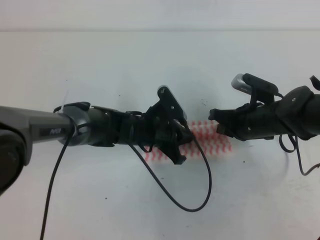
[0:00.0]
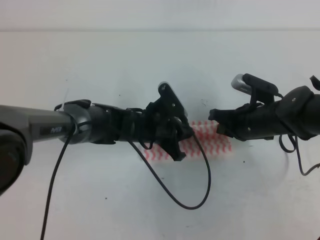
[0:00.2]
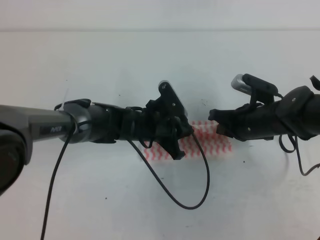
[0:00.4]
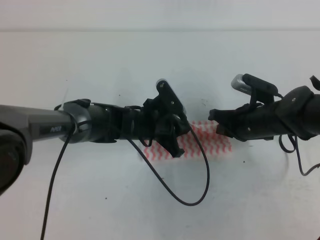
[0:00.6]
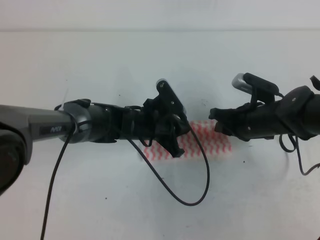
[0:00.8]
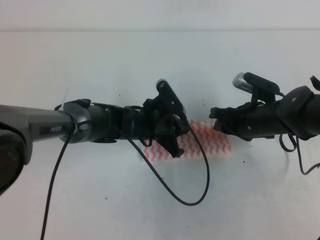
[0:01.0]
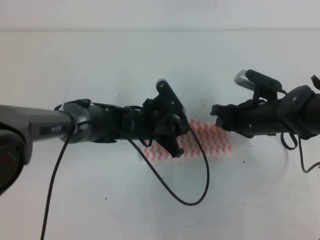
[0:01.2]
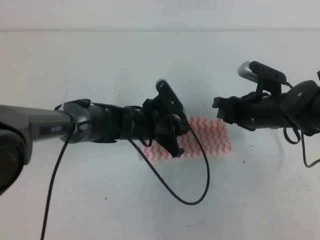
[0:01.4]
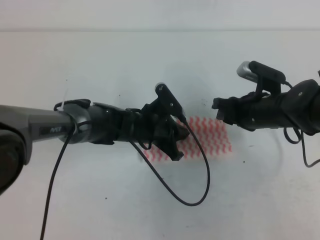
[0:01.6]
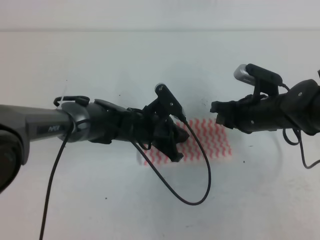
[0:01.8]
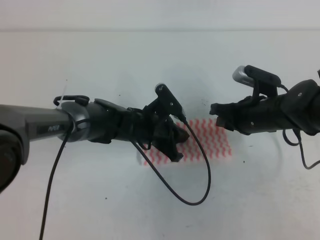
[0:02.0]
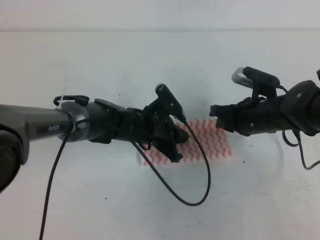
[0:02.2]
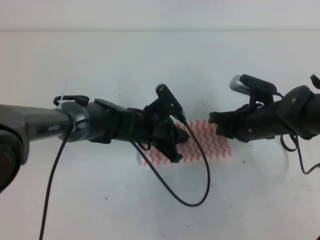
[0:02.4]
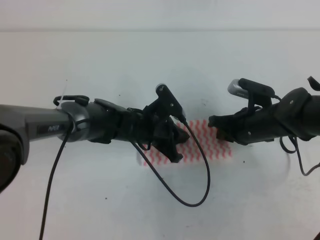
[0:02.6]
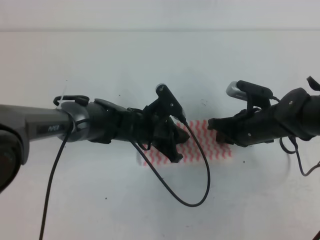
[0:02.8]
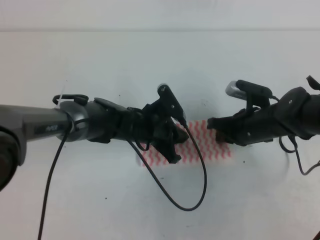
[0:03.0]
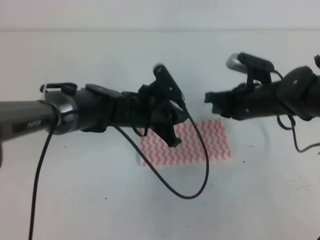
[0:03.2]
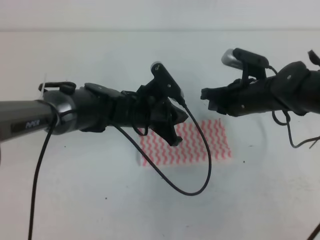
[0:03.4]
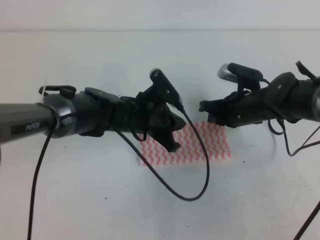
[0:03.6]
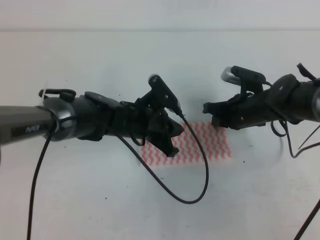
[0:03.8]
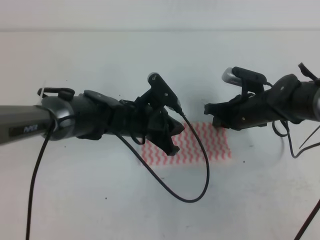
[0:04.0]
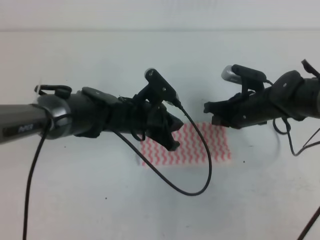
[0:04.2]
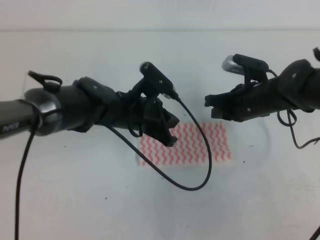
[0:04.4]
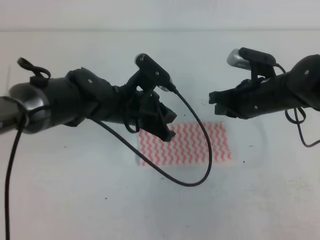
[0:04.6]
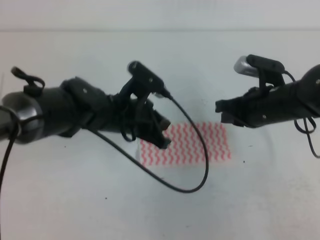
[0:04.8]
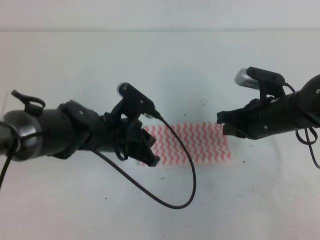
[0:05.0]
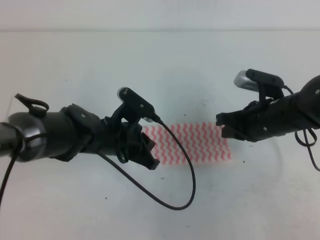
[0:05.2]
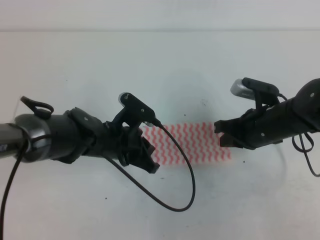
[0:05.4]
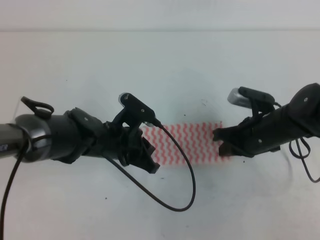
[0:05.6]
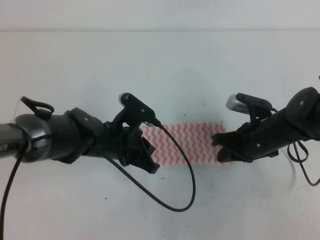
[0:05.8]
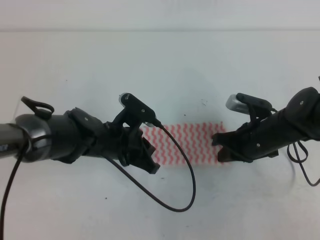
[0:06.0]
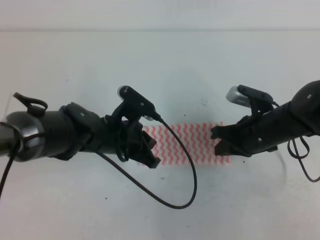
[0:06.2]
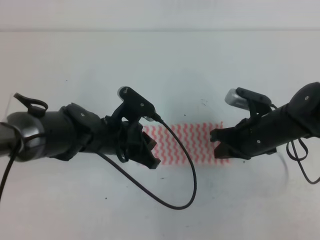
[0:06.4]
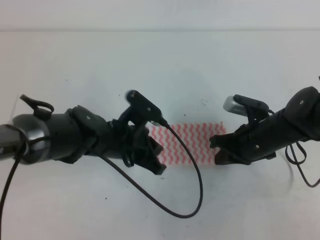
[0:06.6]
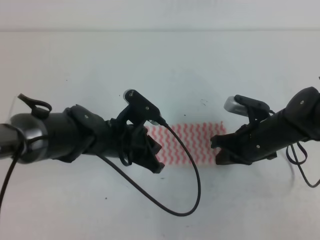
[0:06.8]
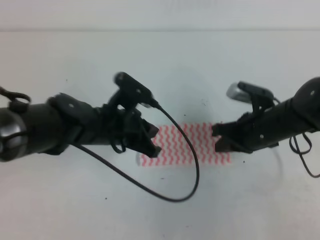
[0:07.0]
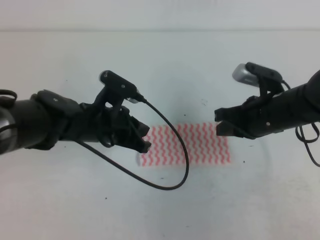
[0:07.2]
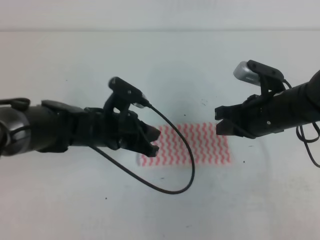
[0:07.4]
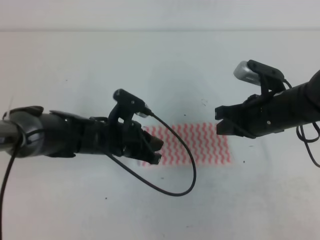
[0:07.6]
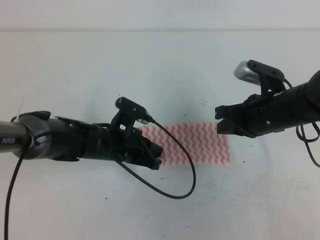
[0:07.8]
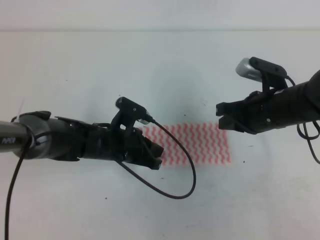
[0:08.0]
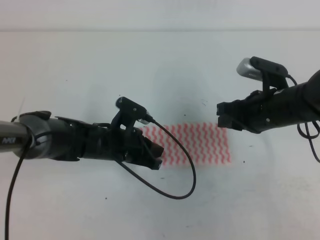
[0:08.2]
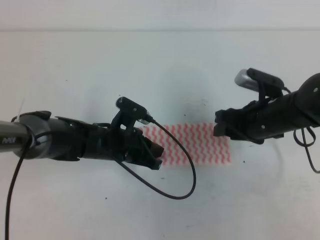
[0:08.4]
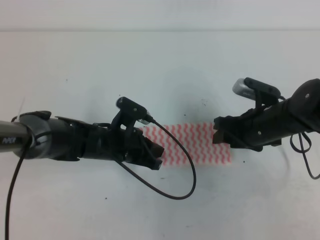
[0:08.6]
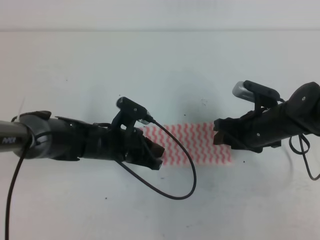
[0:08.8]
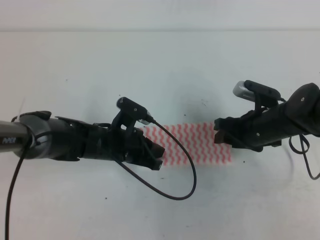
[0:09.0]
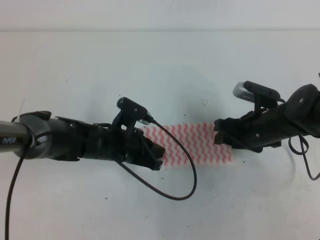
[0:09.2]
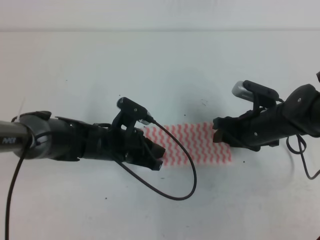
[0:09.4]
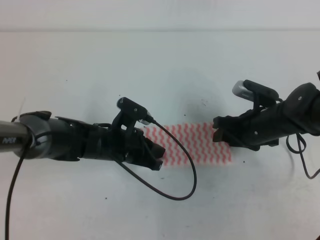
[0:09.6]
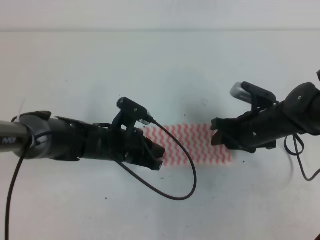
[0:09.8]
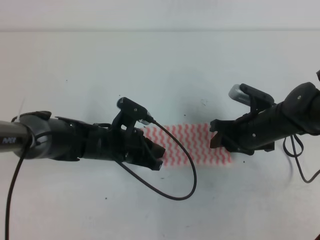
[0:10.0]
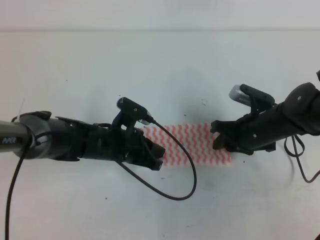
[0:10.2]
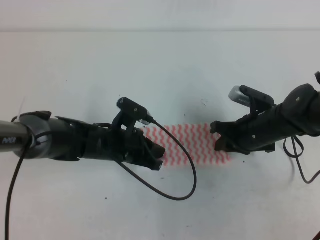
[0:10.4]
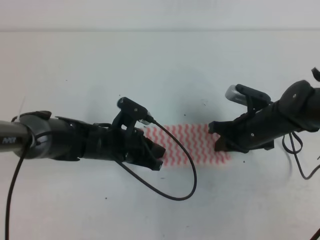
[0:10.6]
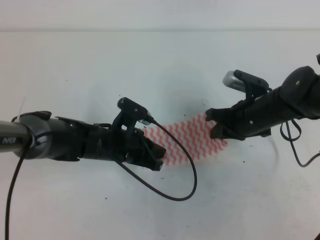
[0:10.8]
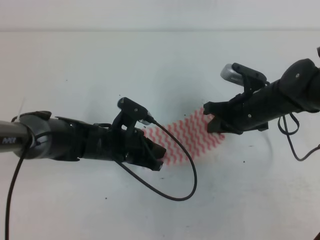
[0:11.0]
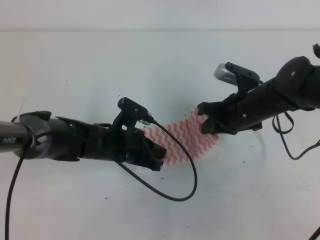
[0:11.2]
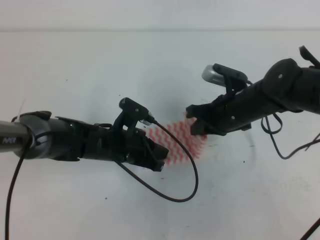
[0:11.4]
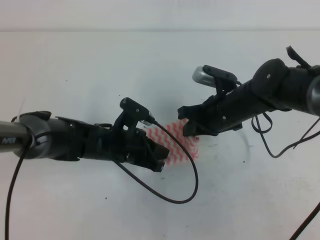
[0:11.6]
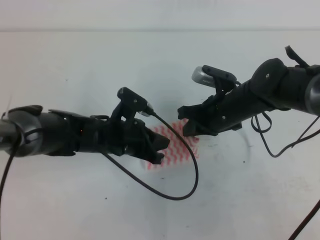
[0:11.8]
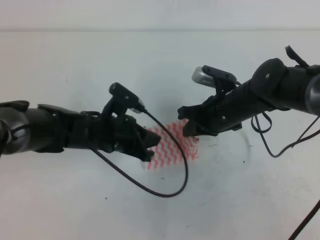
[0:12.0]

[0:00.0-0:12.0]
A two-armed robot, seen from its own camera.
0:00.0 to 0:01.6: The right gripper opens.
0:01.6 to 0:03.0: The right gripper closes up.
0:03.0 to 0:04.4: The left gripper travels upward by about 5 cm.
0:04.4 to 0:06.0: The left gripper moves roughly 5 cm. The right gripper is displaced backward by about 5 cm.
0:06.0 to 0:07.6: The right gripper heads upward, covering some 5 cm.
0:07.6 to 0:09.0: The right gripper is displaced downward by roughly 5 cm, and opens its fingers.
0:09.0 to 0:10.4: The right gripper closes.
0:10.4 to 0:12.0: The right gripper goes some 5 cm to the left.

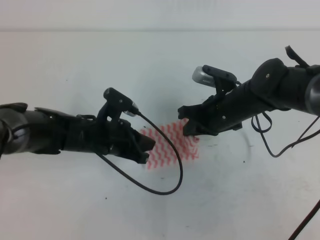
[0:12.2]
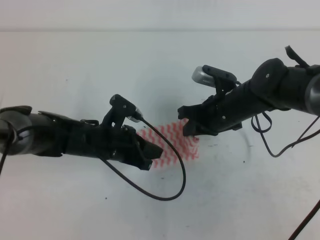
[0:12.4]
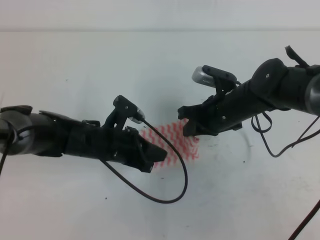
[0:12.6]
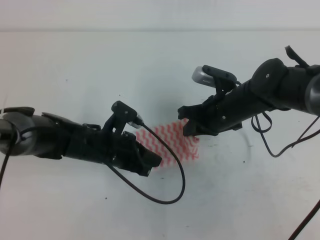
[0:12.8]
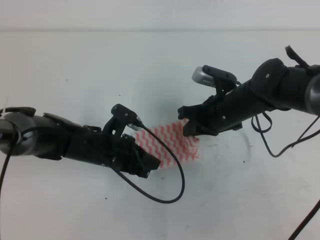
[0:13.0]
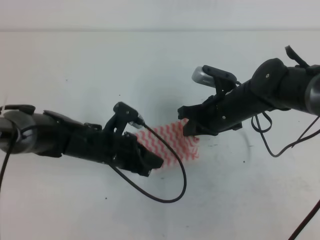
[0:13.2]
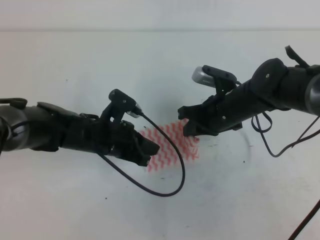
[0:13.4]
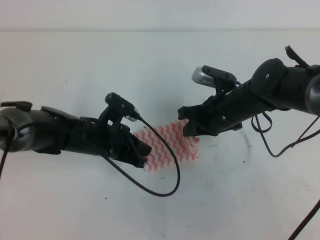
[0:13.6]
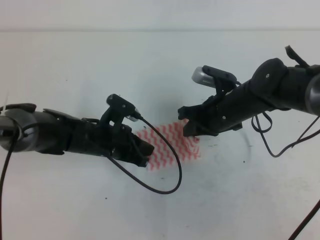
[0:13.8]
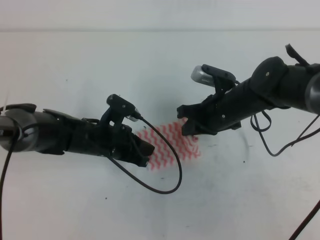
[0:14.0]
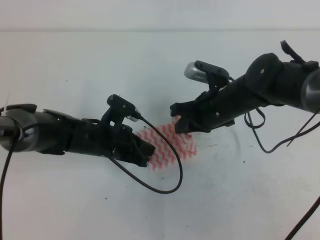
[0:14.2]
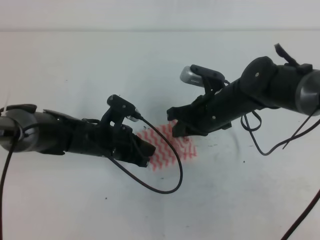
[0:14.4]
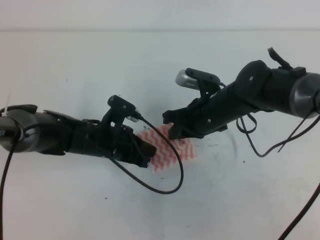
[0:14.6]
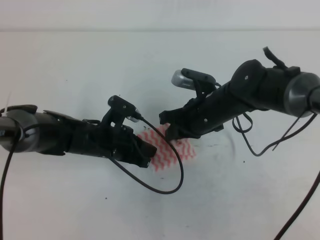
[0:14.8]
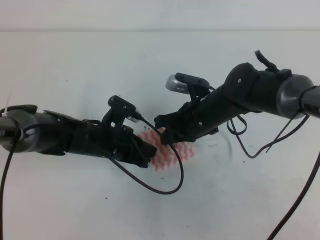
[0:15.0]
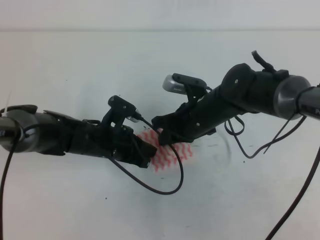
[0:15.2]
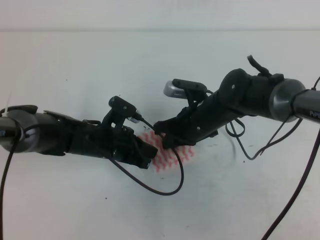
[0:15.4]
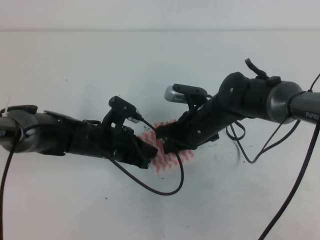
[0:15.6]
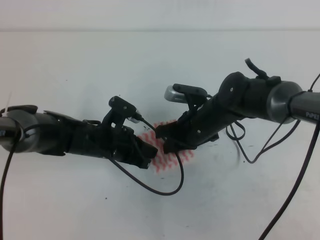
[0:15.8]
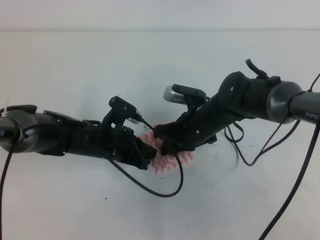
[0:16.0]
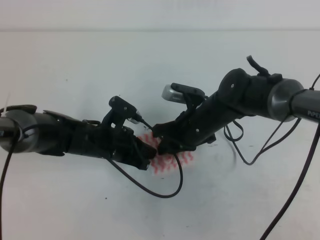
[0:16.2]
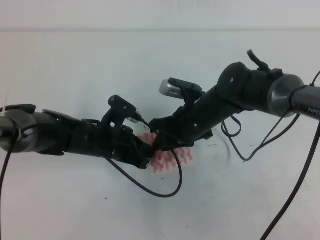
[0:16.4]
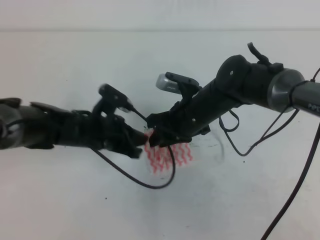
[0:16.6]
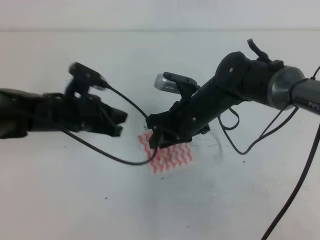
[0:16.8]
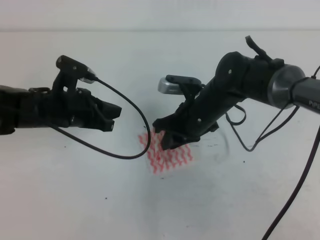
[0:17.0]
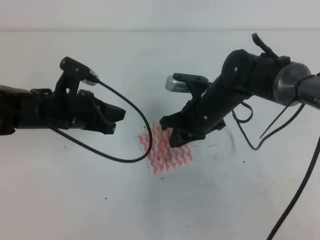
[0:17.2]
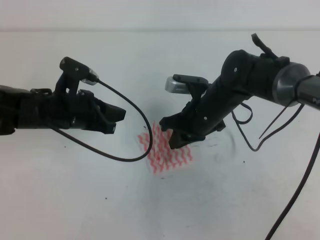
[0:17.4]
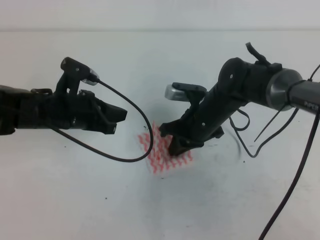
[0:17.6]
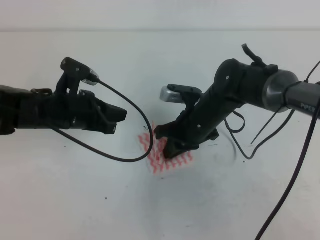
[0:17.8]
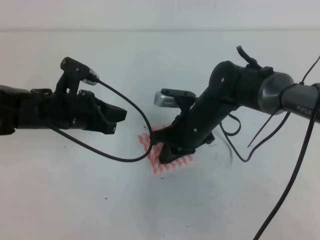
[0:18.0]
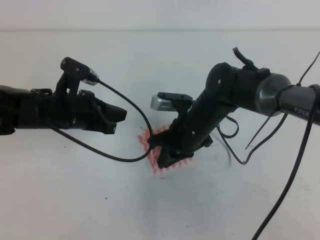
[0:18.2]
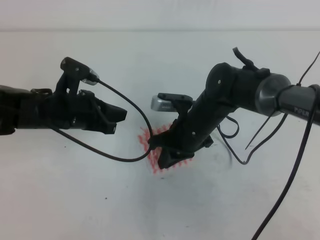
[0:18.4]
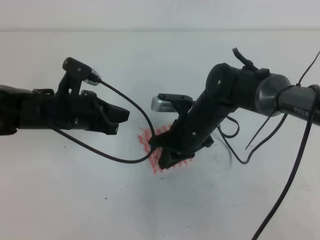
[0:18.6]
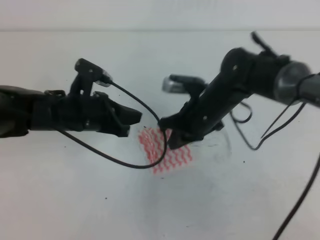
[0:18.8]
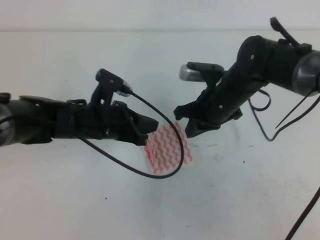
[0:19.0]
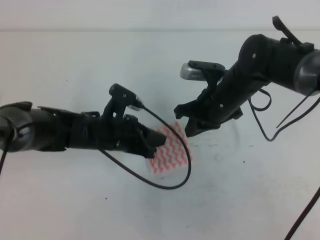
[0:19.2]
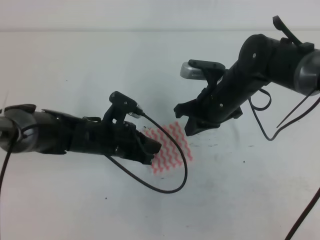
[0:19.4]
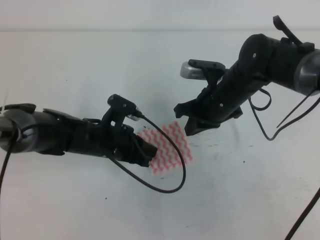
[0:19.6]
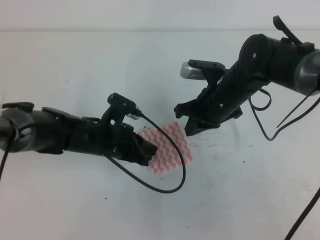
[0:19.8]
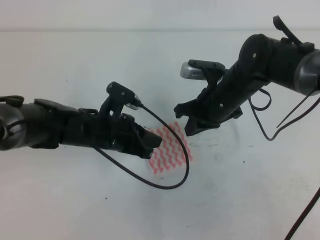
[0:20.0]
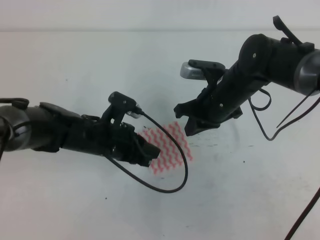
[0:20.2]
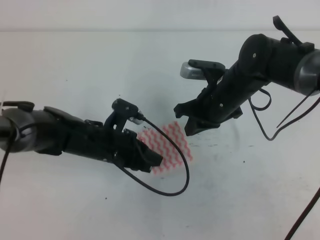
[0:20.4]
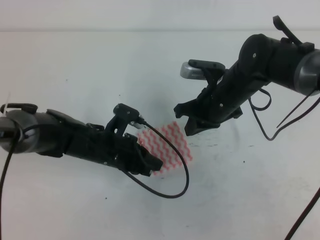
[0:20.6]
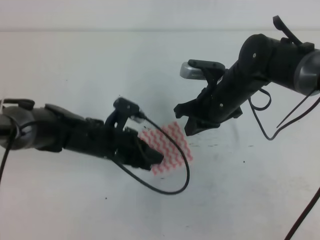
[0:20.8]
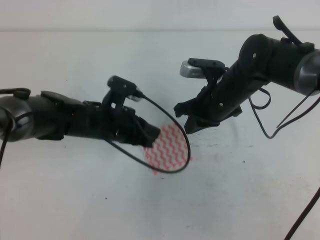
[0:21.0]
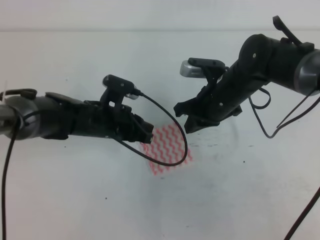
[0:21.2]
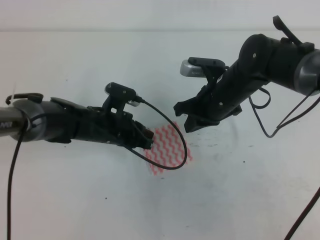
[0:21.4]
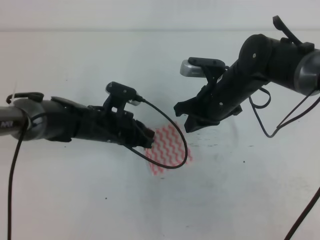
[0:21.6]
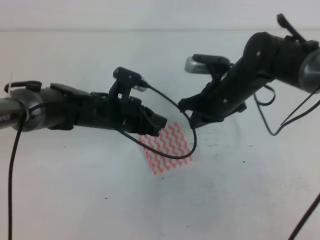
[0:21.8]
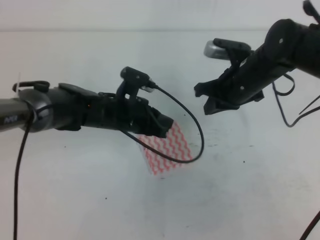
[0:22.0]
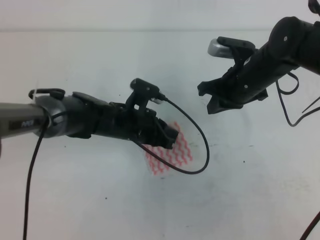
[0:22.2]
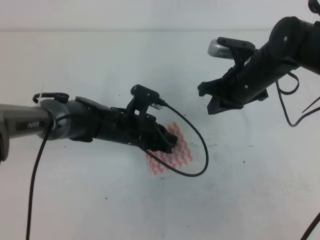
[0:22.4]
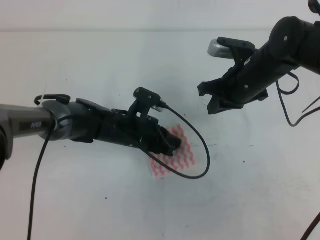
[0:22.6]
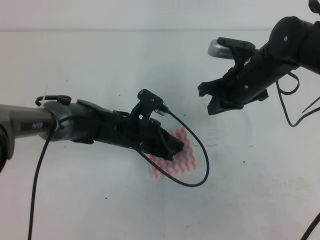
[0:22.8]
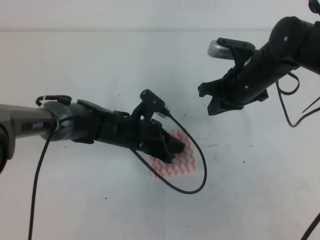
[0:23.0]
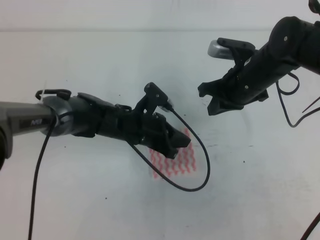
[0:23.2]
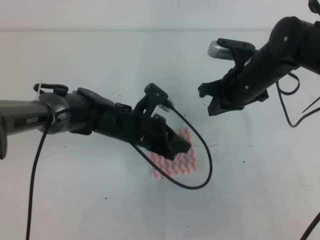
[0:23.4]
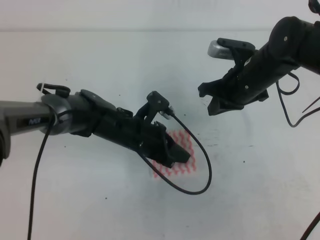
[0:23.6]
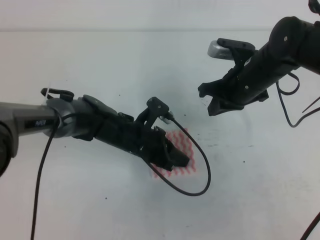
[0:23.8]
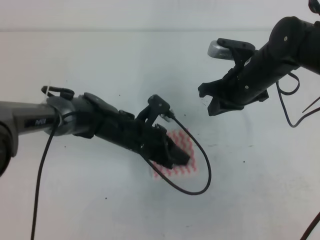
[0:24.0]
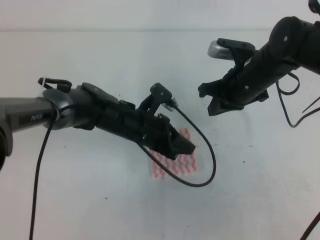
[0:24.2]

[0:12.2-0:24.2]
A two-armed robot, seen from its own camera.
0:12.2 to 0:15.2: The grippers move only a little.
0:15.2 to 0:16.6: The right gripper opens its fingers.
0:16.6 to 0:18.2: The right gripper closes its fingers; the left gripper shifts roughly 5 cm upward.
0:18.2 to 0:19.8: The right gripper changes place by approximately 5 cm. Meanwhile the left gripper travels to the right and downward by roughly 10 cm.
0:19.8 to 0:21.2: The grippers make only small movements.
0:21.2 to 0:22.6: The right gripper ends up about 5 cm from where it was. The left gripper changes place by about 5 cm.
0:22.6 to 0:24.2: The grippers stay close to where they were, moving slightly.
